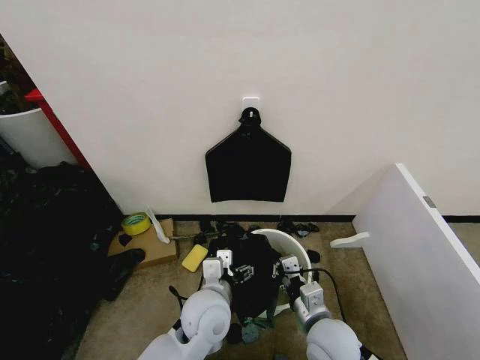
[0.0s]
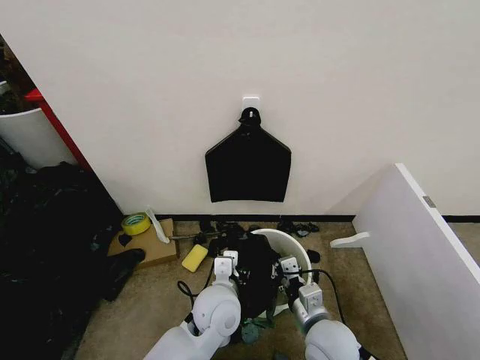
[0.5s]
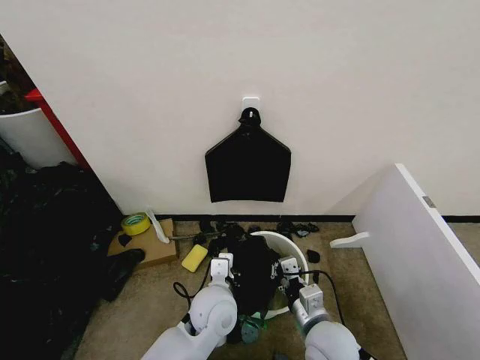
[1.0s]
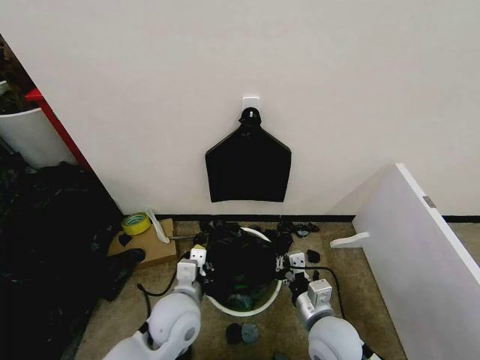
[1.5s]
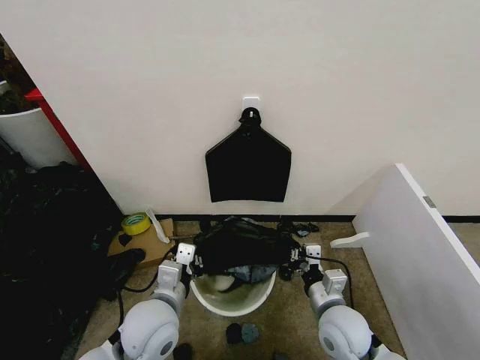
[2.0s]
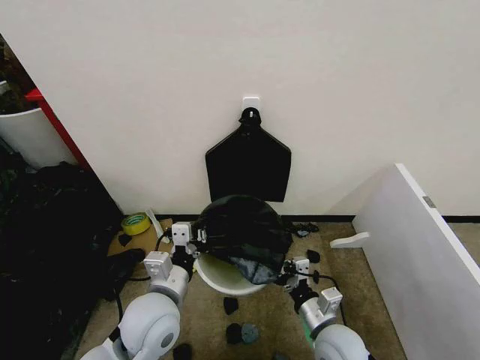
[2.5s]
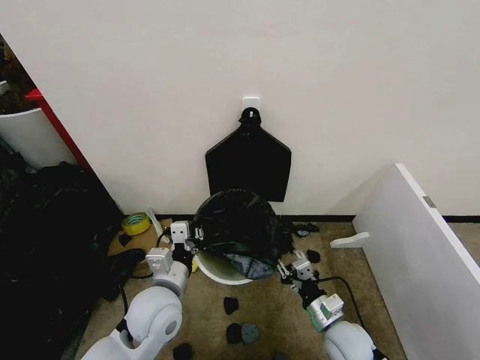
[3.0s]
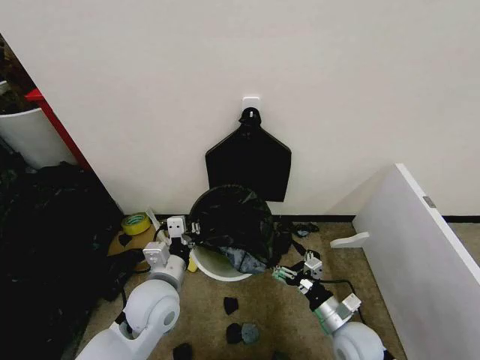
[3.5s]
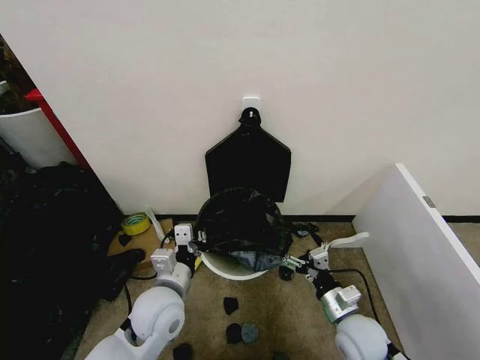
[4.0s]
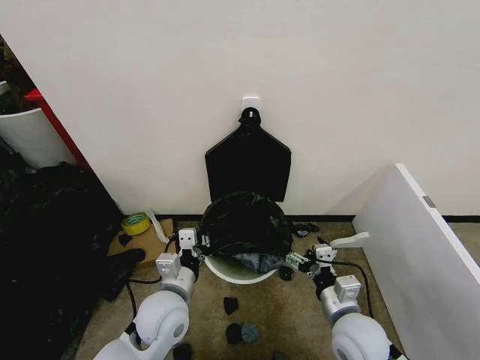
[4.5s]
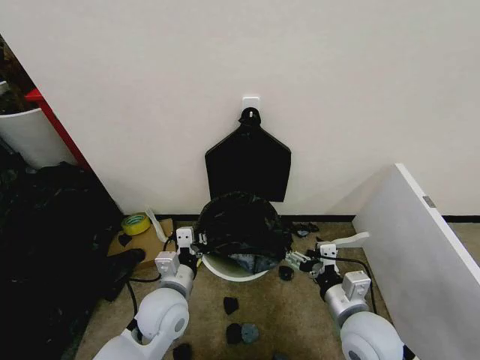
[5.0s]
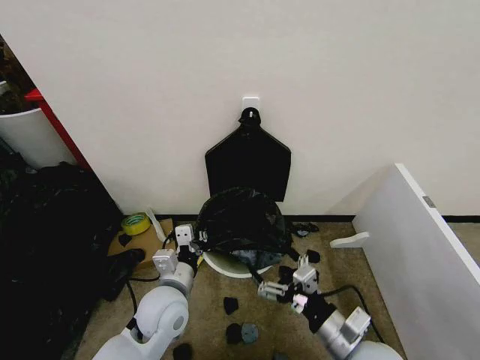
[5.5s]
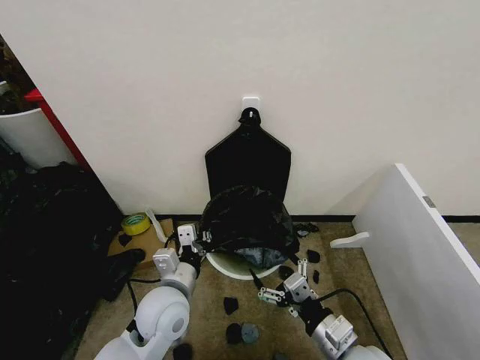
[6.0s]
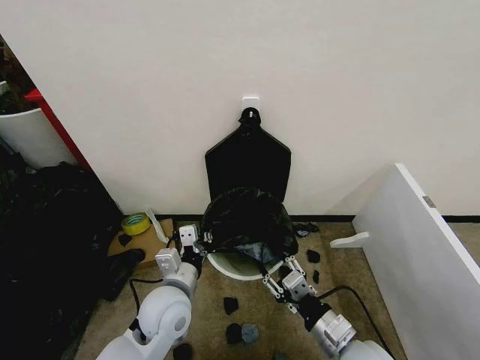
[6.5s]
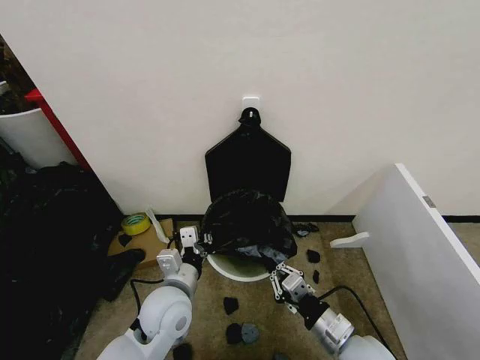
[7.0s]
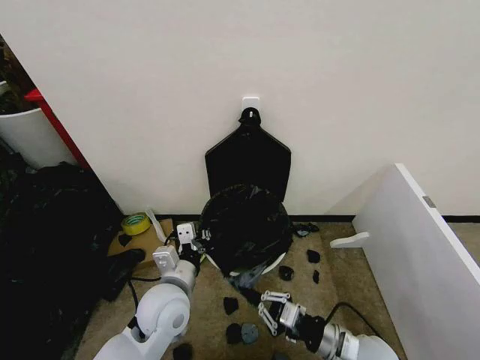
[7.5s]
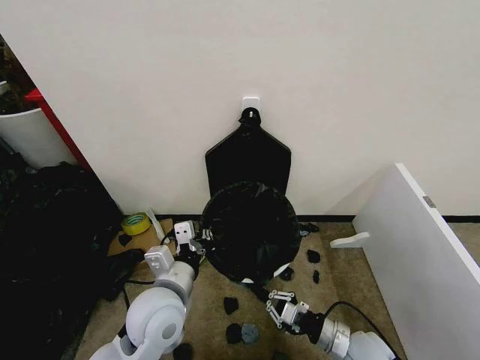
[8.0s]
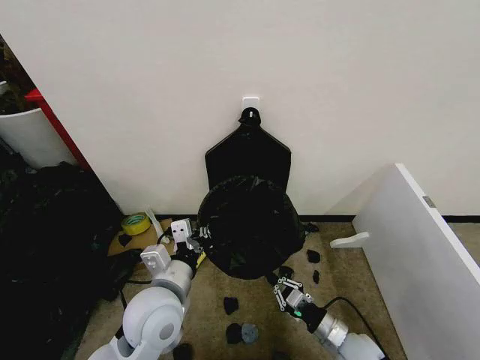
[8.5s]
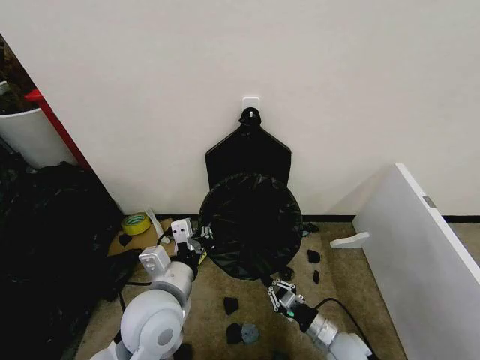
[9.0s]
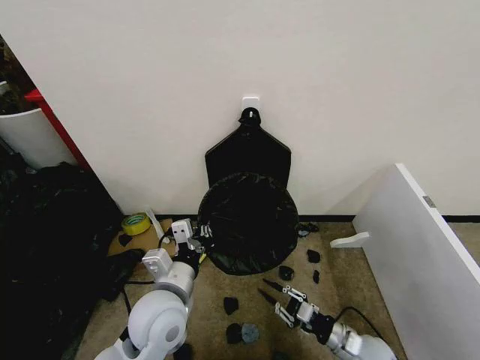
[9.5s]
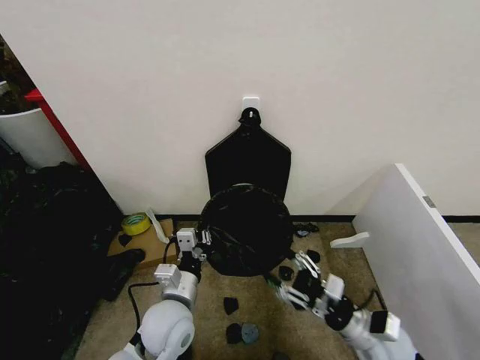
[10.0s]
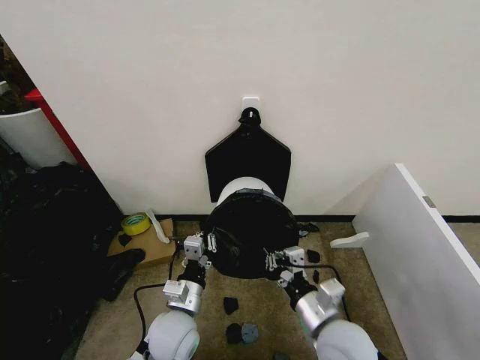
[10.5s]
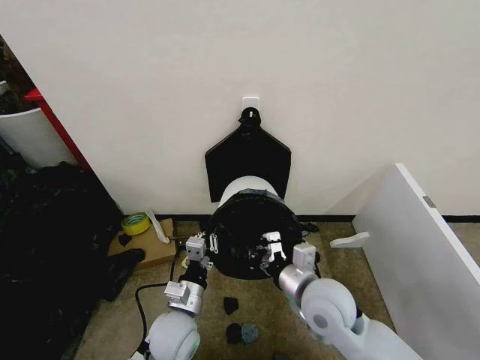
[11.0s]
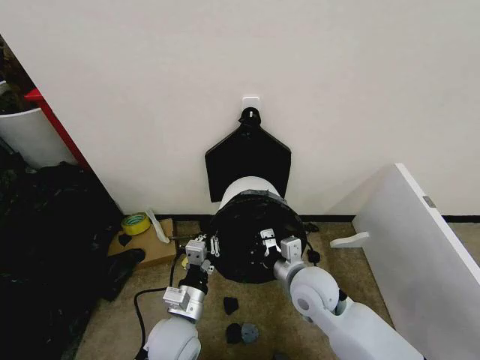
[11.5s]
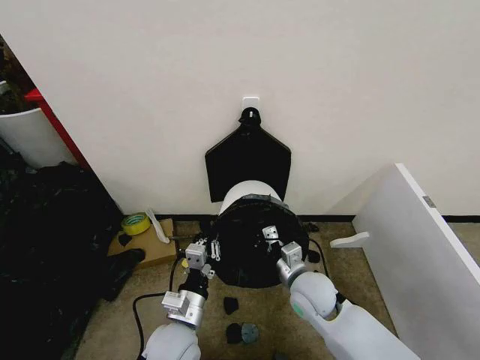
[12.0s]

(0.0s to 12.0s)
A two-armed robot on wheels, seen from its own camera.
Task of the whole recording: Place the garbage bag over the trash bin.
0.0s - 2.0s: The left gripper goes approximately 10 cm to the left, and closes up.
2.0s - 4.0s: The right gripper shifts by roughly 5 cm, and opens up.
4.0s - 6.0s: The right gripper heads backward and upward, covering approximately 10 cm.
6.0s - 8.0s: The right gripper travels downward by roughly 10 cm, and closes up.
8.0s - 10.0s: The right gripper travels upward by roughly 5 cm, and opens its fingers, while the left gripper goes roughly 5 cm downward.
10.0s - 12.0s: The right gripper goes approximately 15 cm to the left and forward, and closes its fingers.

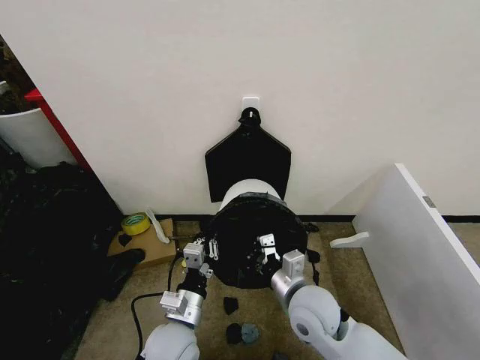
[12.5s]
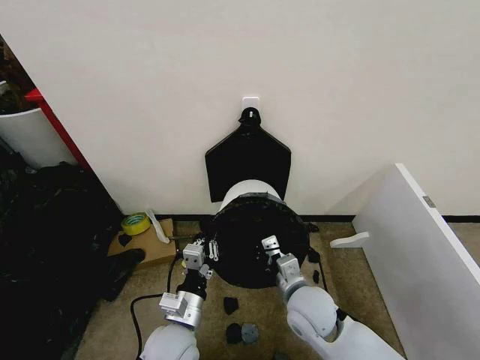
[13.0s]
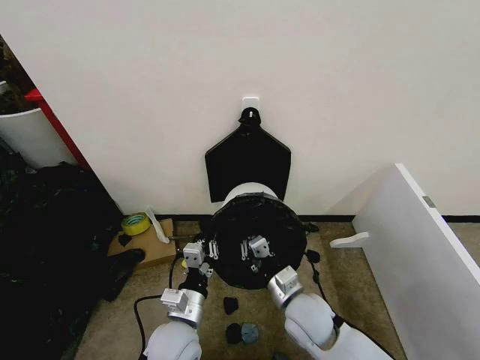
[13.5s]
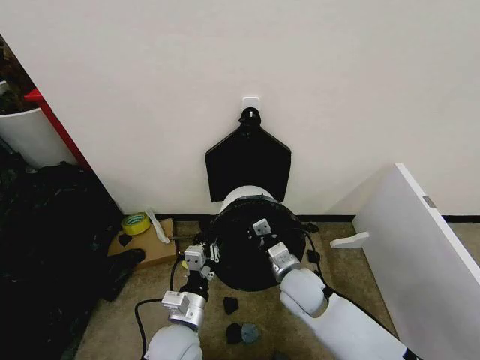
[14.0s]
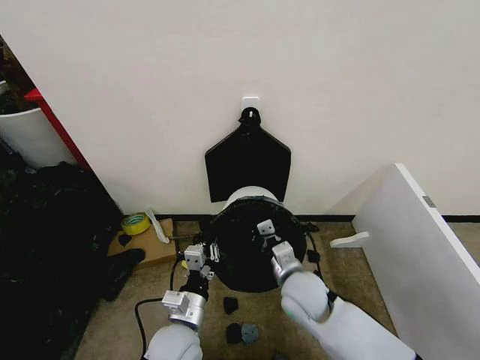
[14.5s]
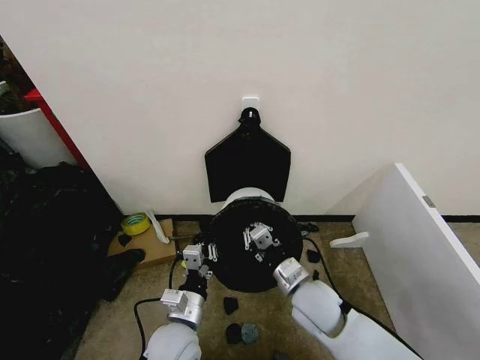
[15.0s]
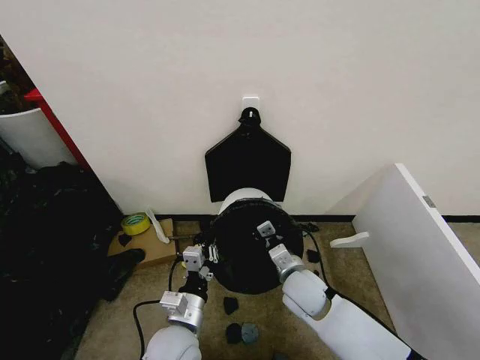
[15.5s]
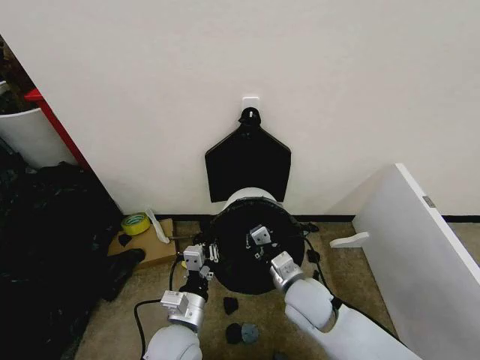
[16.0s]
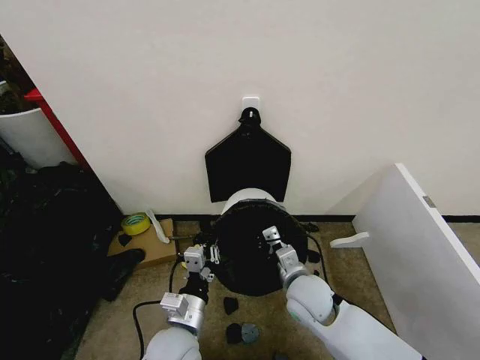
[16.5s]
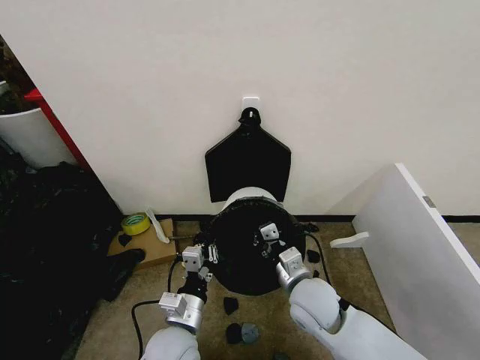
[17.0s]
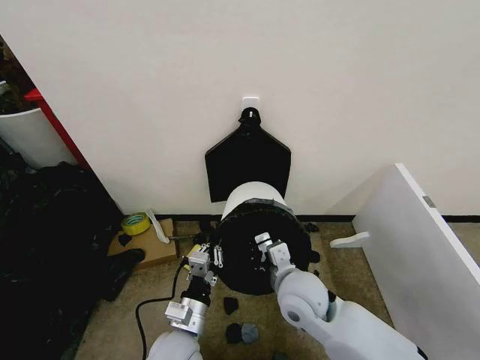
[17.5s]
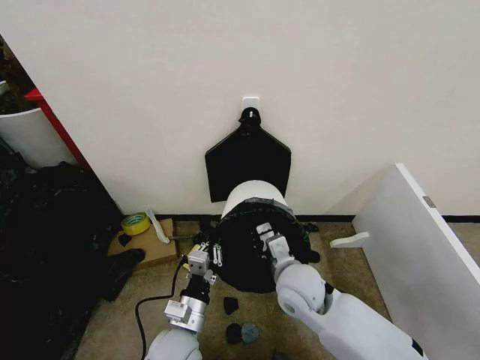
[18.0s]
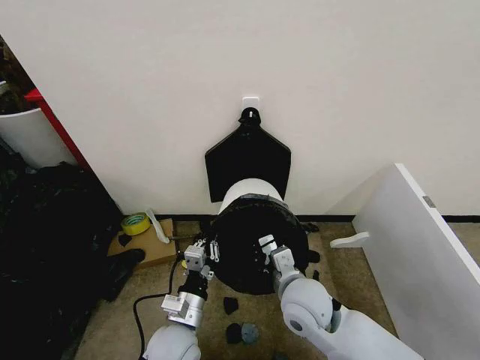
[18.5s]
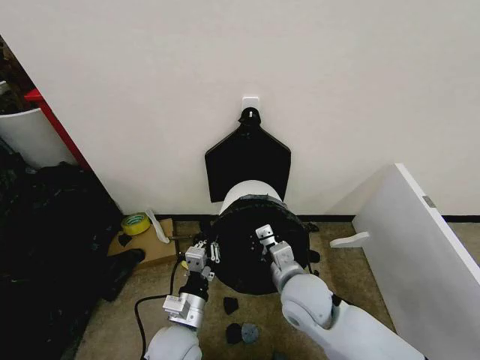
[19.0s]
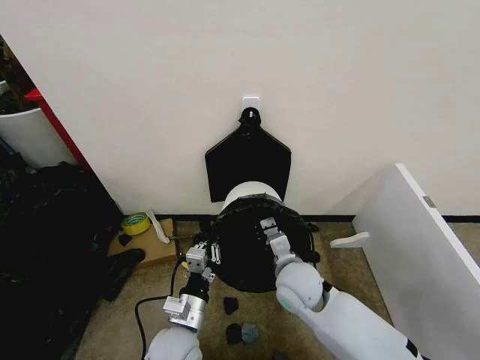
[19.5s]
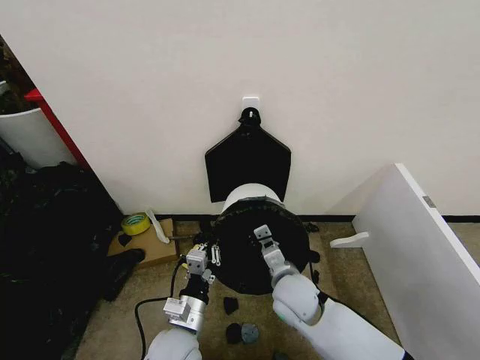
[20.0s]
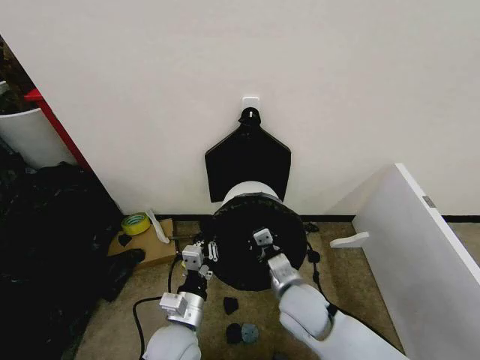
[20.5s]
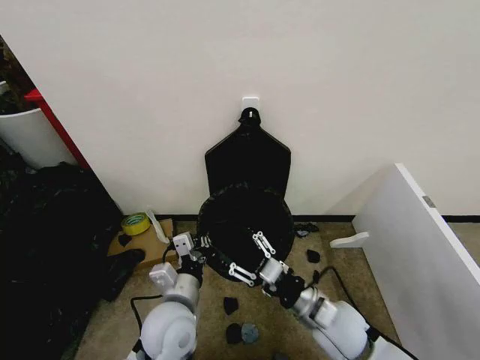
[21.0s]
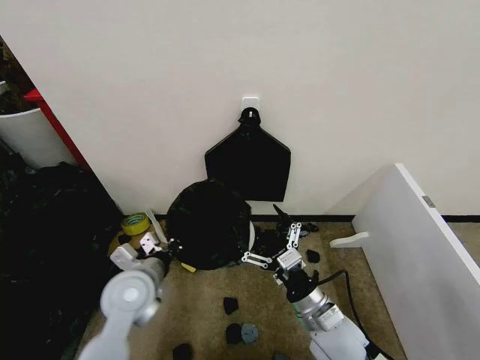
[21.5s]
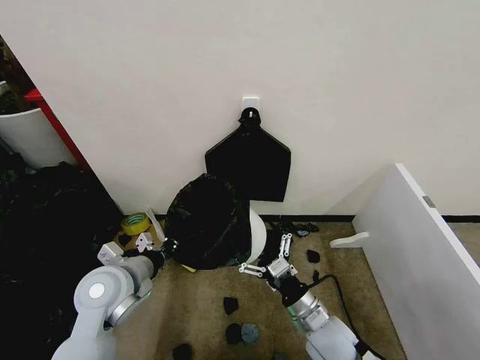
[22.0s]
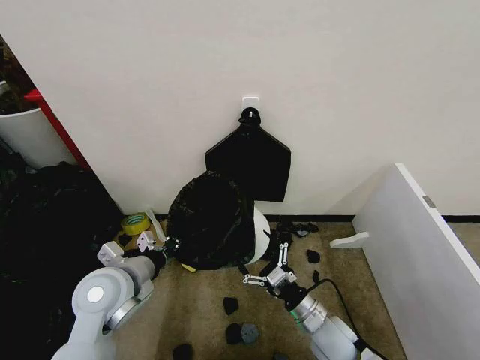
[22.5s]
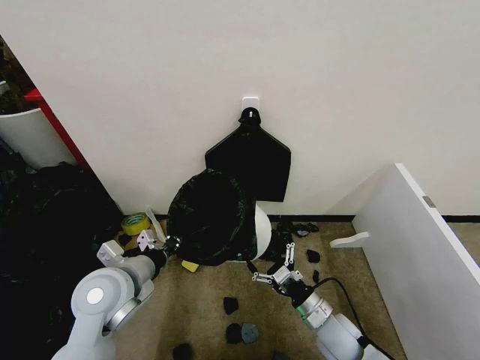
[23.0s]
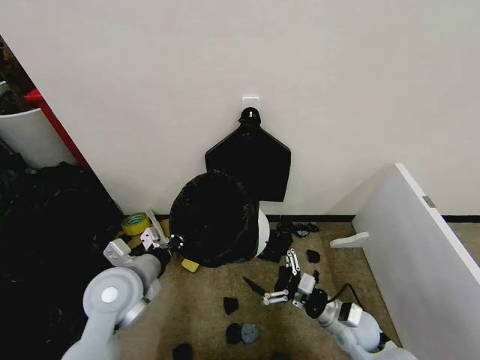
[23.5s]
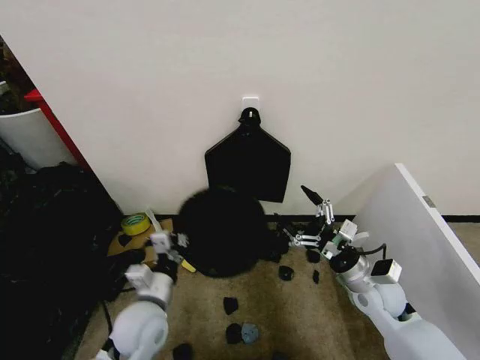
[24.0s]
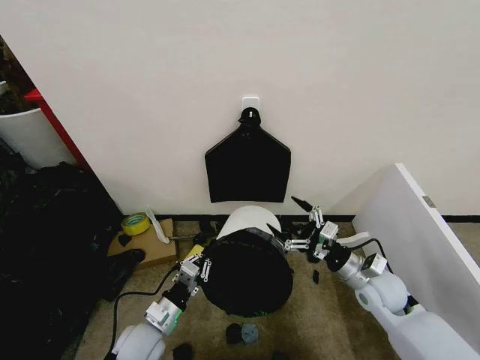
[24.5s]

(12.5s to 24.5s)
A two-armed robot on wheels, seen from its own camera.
Task of the whole recording: Place the garbage bag over the trash bin.
14.5s - 16.5s: The grippers stay close to where they were, moving slightly.
16.5s - 18.5s: The right gripper moves some 5 cm.
20.5s - 22.5s: The left gripper moves to the left, upward and forward, about 20 cm; the right gripper is displaced downward and to the right by approximately 10 cm, and opens up.
22.5s - 24.5s: The left gripper is displaced downward by some 15 cm, while the right gripper shifts approximately 15 cm to the right, forward and upward.

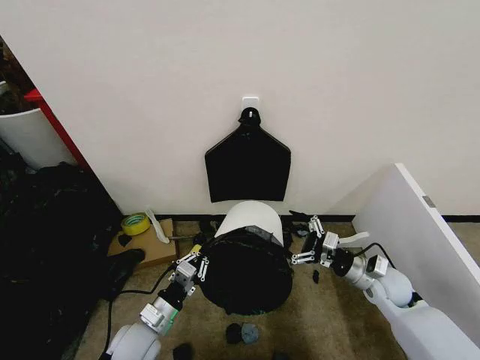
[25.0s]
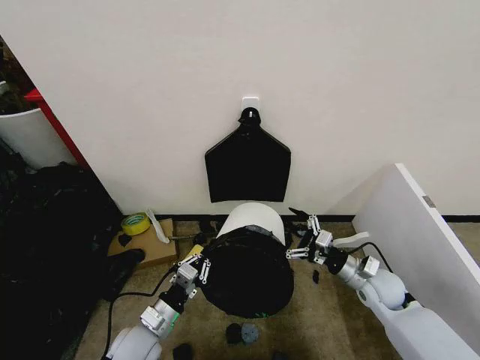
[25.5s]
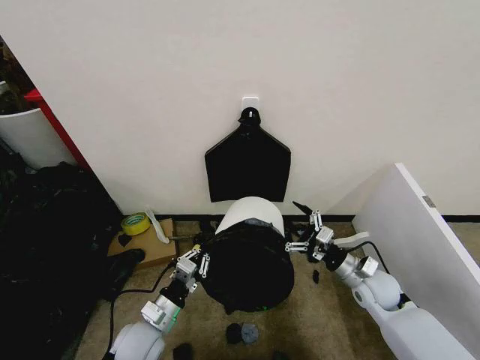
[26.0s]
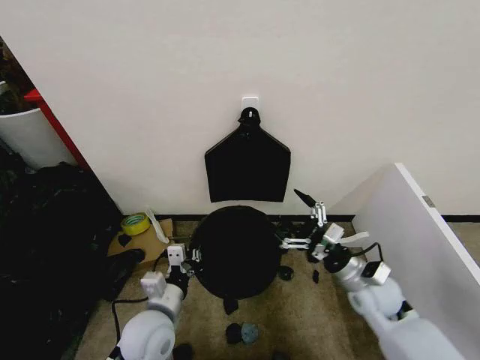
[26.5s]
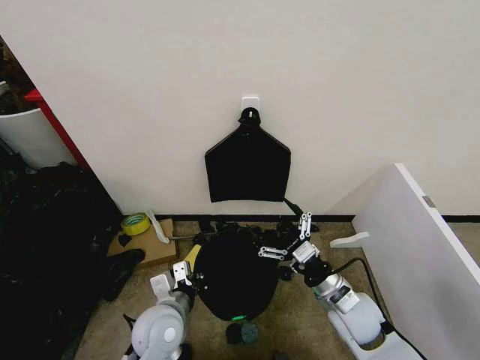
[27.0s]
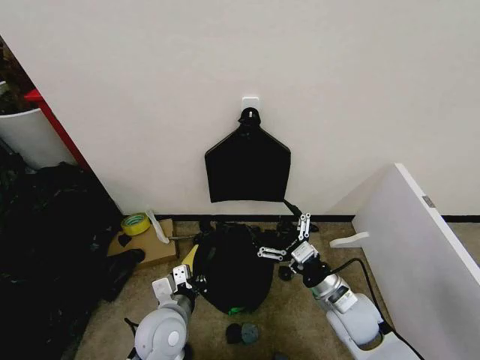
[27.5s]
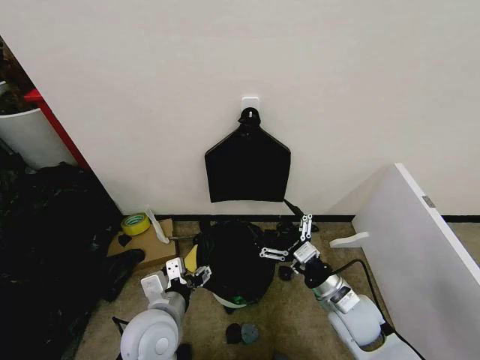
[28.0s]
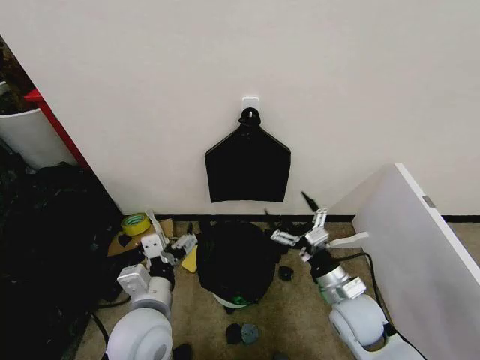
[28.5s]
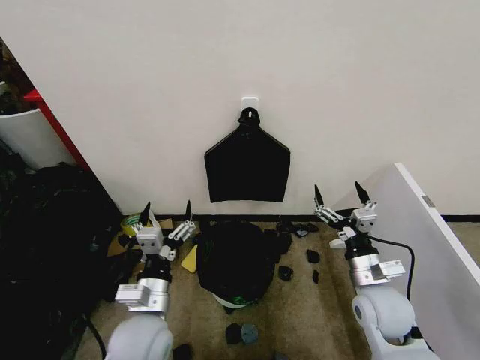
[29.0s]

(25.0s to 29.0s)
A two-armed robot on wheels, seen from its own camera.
Task of the whole recording: Place the garbage bag over the trash bin.
25.0s - 27.0s: The left gripper is displaced upward and to the right by some 10 cm, while the right gripper heads to the left and backward, covering roughly 15 cm.
27.0s - 29.0s: The right gripper shifts by approximately 5 cm, while the left gripper opens.
